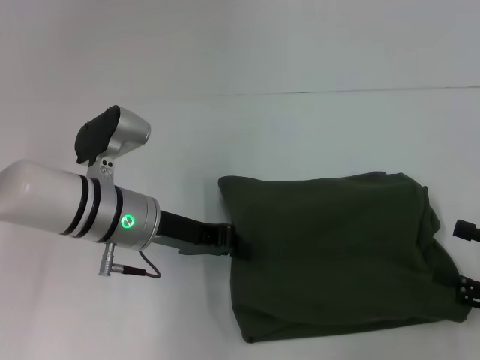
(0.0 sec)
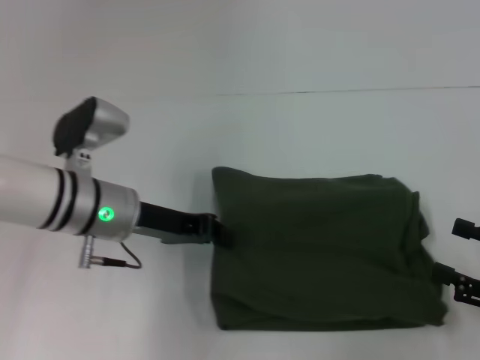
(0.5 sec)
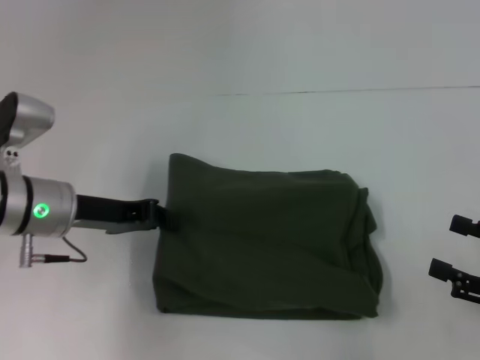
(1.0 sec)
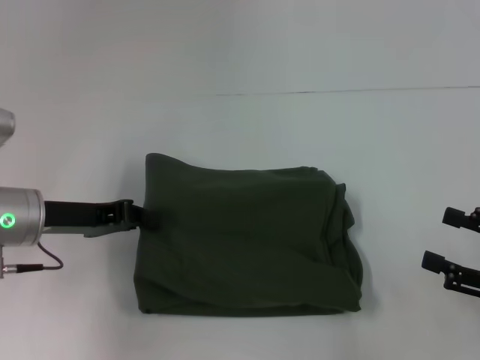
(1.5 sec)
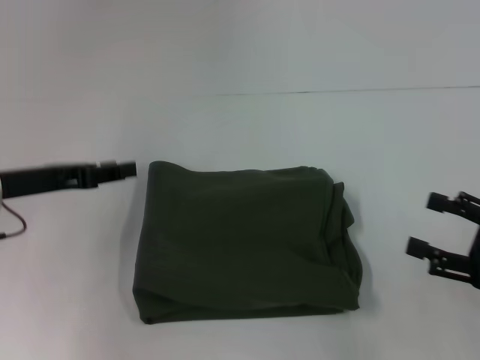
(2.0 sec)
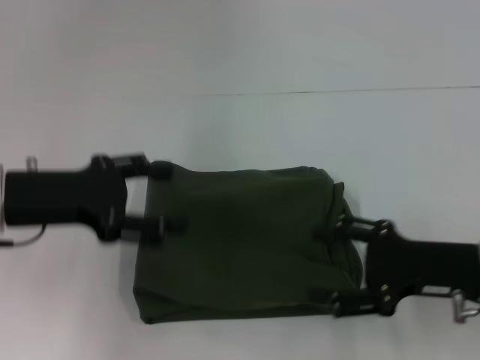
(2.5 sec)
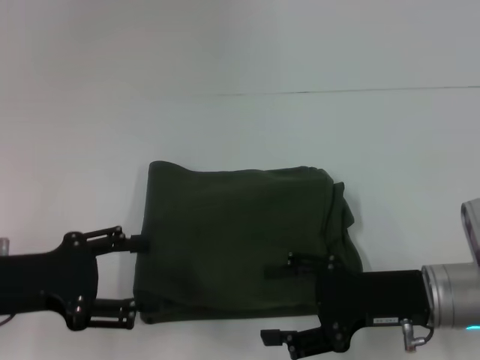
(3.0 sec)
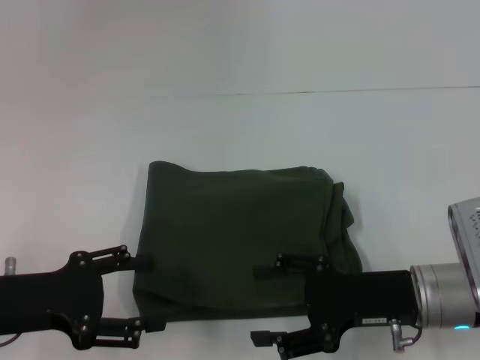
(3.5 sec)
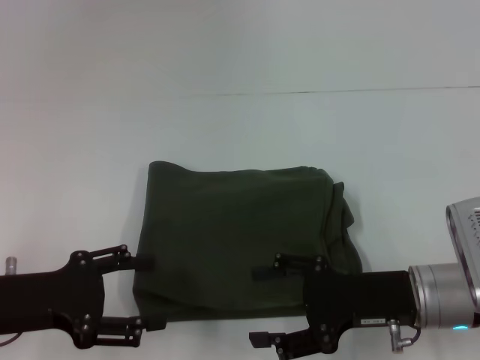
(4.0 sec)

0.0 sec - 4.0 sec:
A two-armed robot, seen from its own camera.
0.0 sec - 2.0 sec: The left gripper is displaced to the left by some 15 cm.
2.0 sec - 4.0 sec: The left gripper shifts about 10 cm backward, and opens. The right gripper travels to the left by approximately 15 cm.
